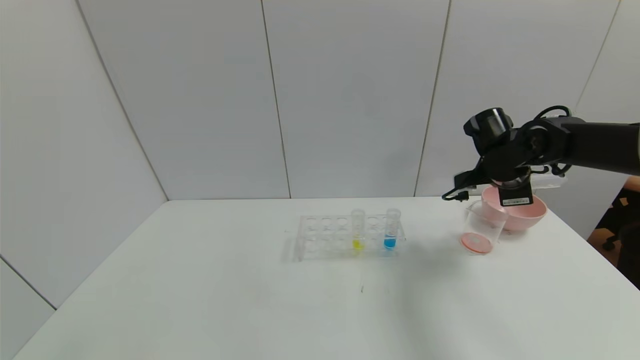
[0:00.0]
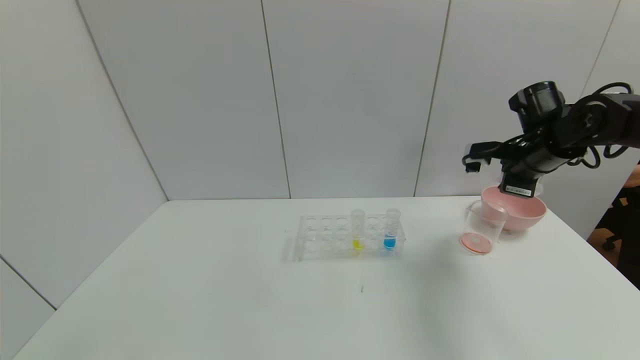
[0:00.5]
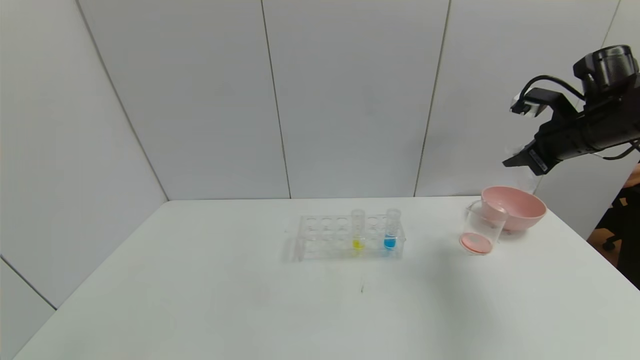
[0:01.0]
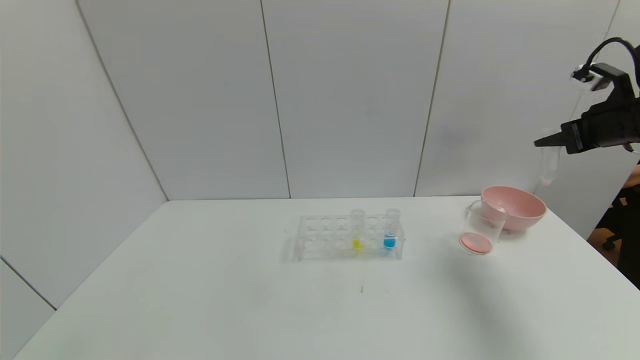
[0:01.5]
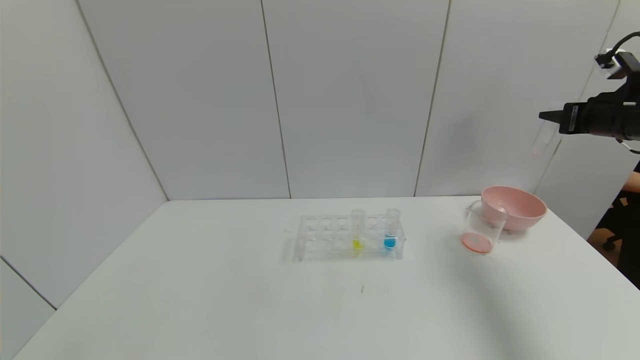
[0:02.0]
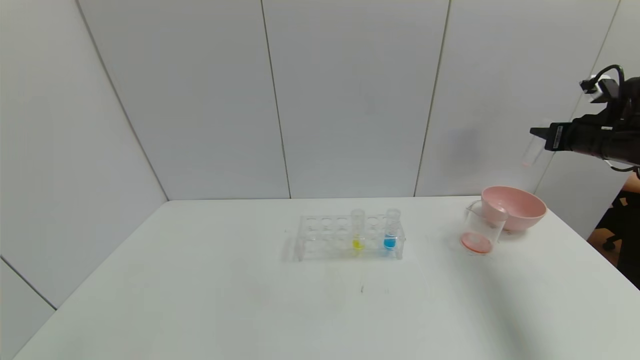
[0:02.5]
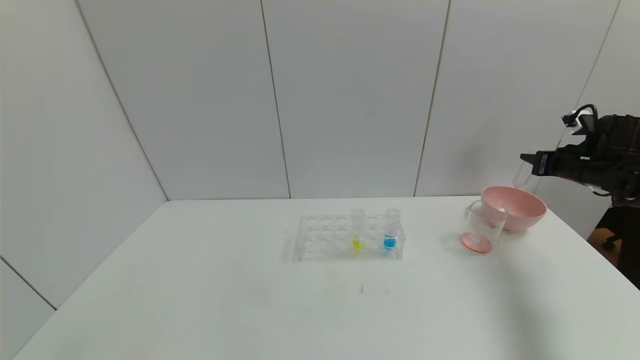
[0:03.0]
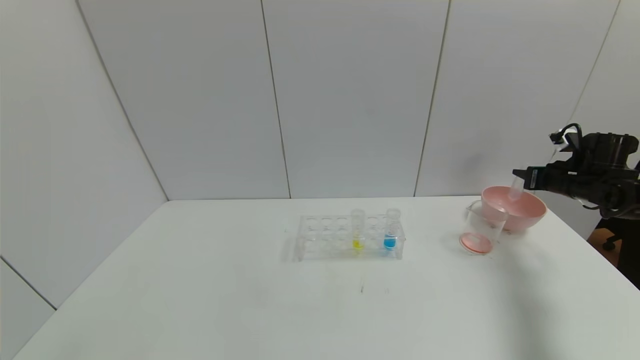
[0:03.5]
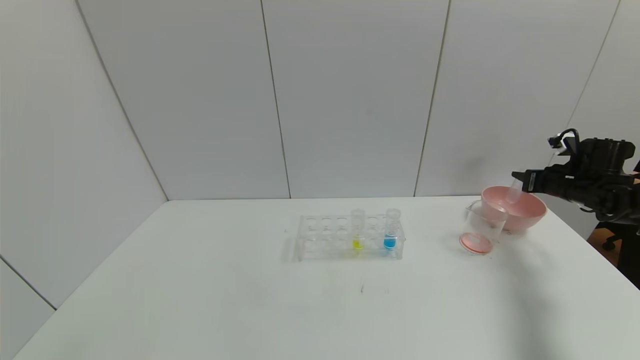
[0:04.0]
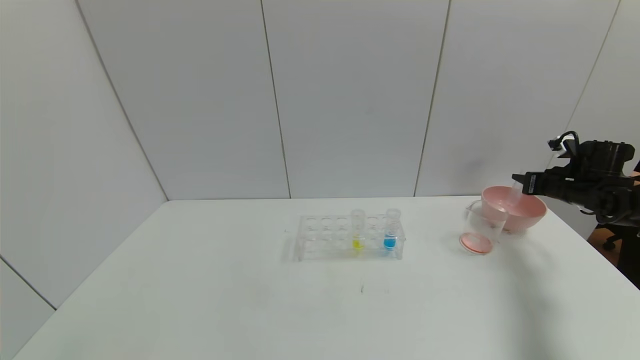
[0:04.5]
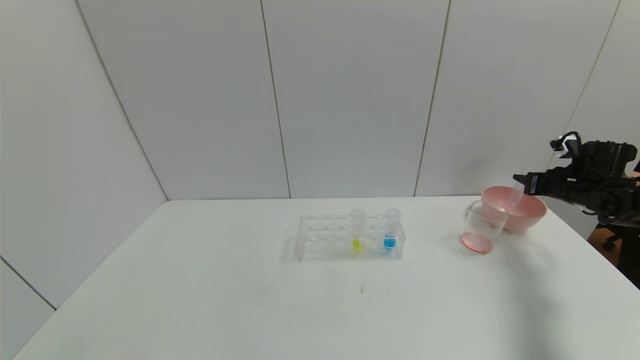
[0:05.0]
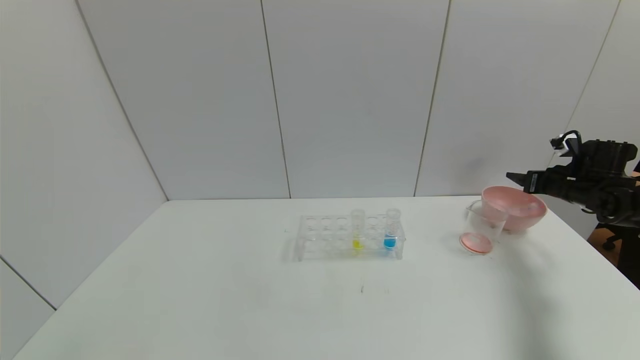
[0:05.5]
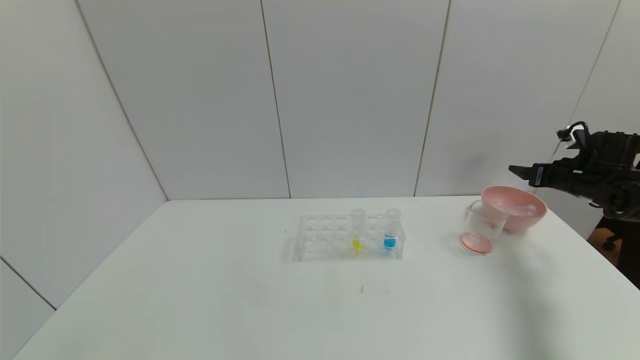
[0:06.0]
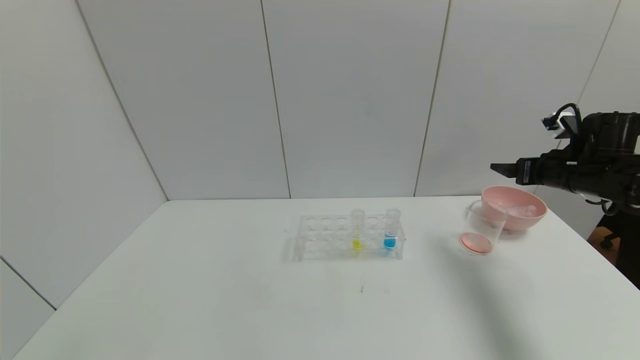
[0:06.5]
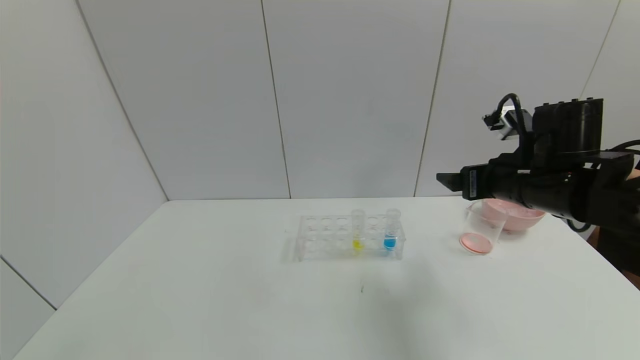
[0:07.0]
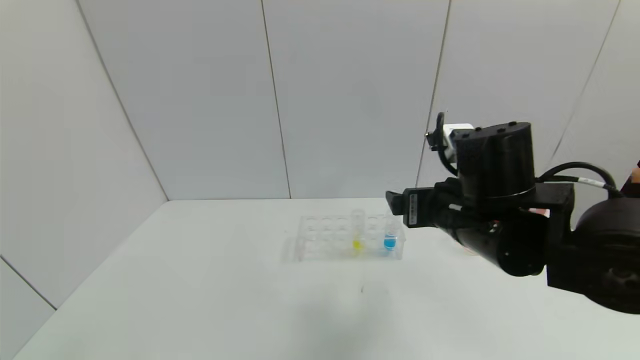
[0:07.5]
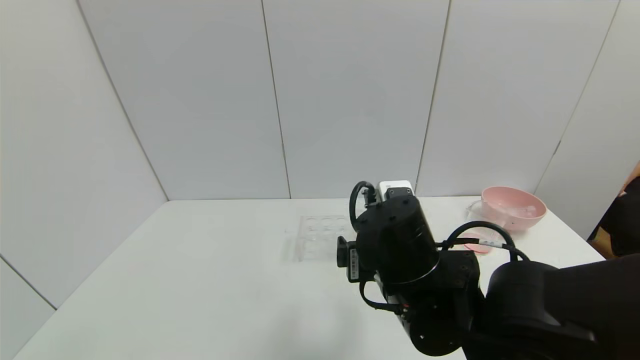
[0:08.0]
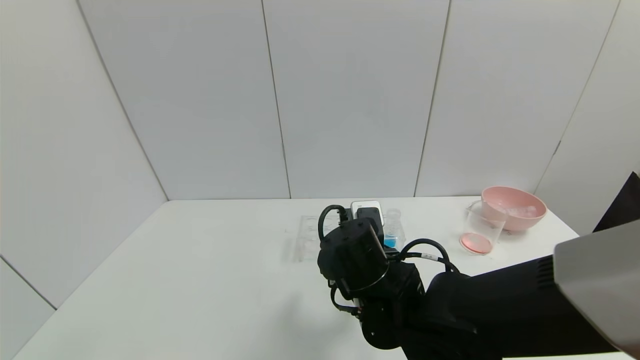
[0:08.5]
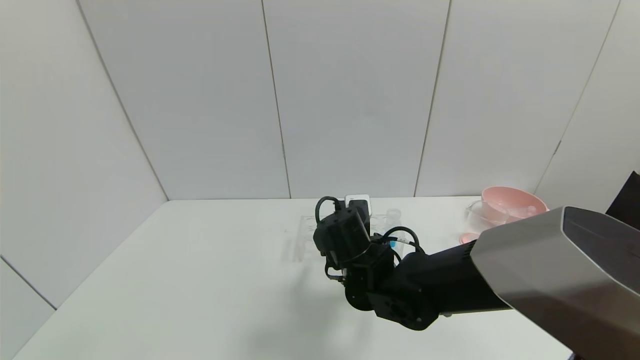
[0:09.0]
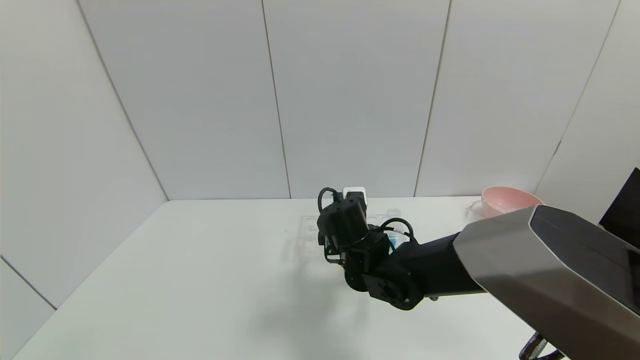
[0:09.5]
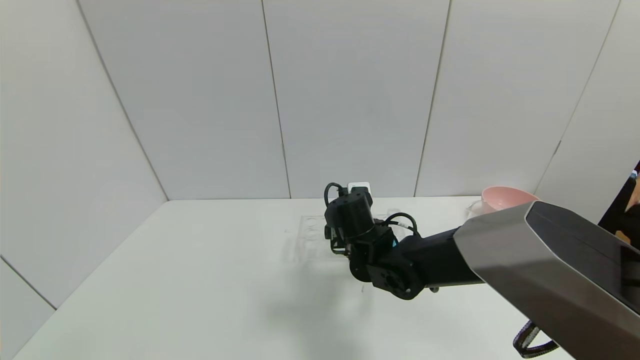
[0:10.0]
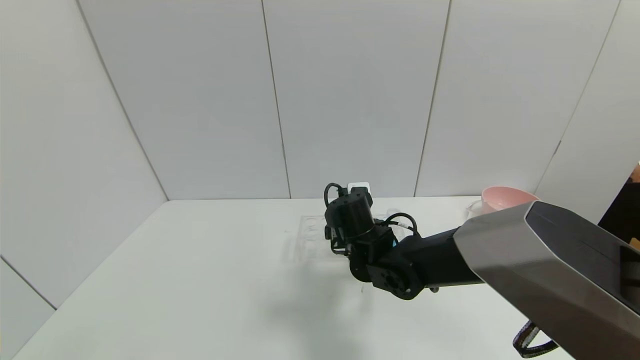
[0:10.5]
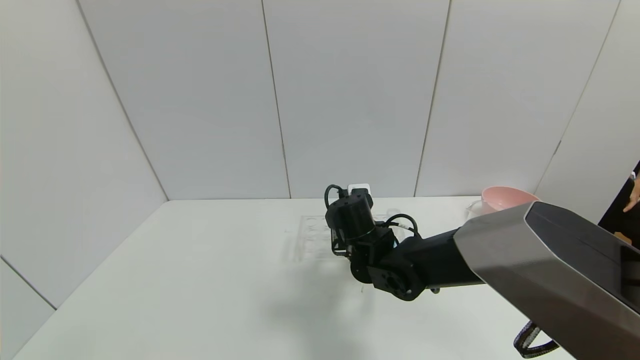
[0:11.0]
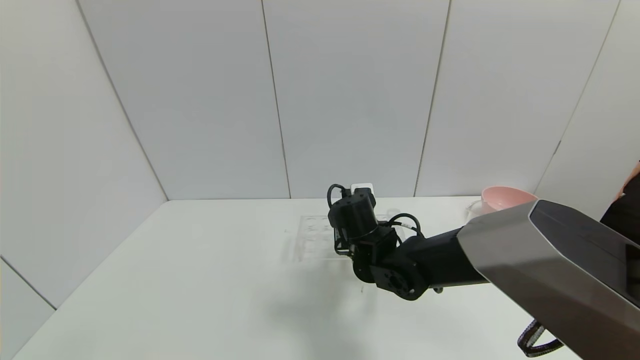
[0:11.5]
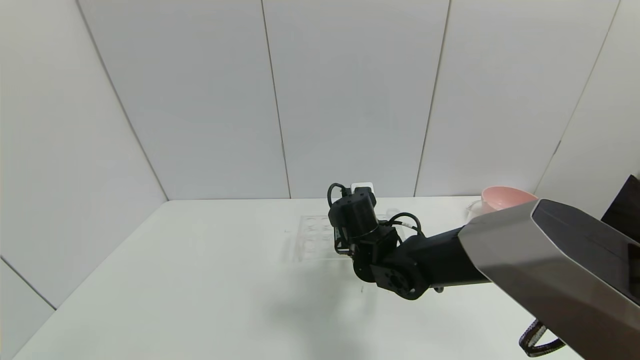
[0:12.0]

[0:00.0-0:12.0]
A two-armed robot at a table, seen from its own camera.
Task of the whole recording: pick up the test tube with yellow pigment and the test tube with red pigment by grippers and pour them into the beaker.
Step, 0:00.0 to 0:05.0: Place the test tube into the bowl with the right gripper.
Step, 0:05.5 to 0:11.0: Grasp the yellow reagent with the right gripper.
0:00.0 to 0:02.0: The right gripper moves to the right and upward, roughly 20 cm.
0:02.0 to 0:04.0: The right gripper heads downward, covering some 15 cm.
0:04.0 to 0:06.0: The right gripper opens its fingers.
0:06.0 to 0:08.0: The right gripper travels to the left and backward by about 40 cm.
0:08.0 to 0:10.0: The right gripper travels forward and downward by approximately 15 cm.
0:10.0 to 0:12.0: The right gripper closes up.

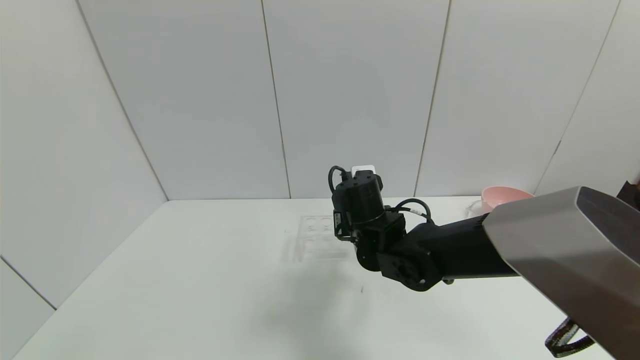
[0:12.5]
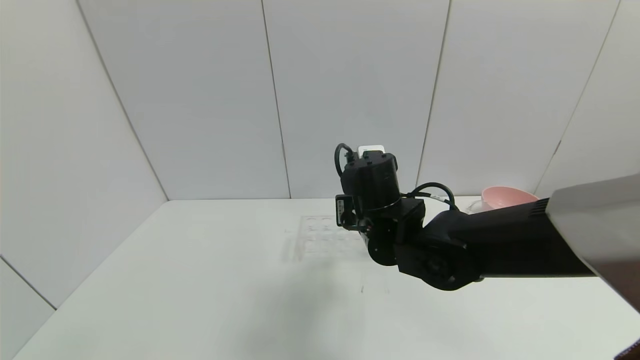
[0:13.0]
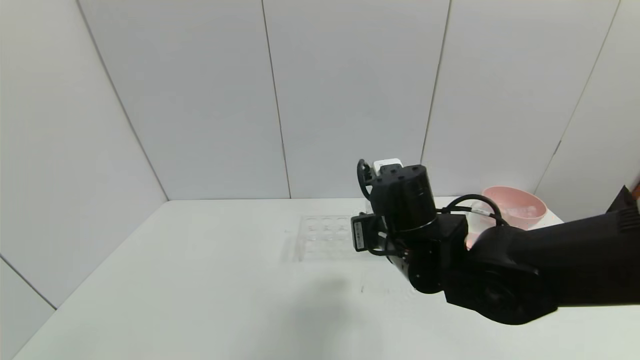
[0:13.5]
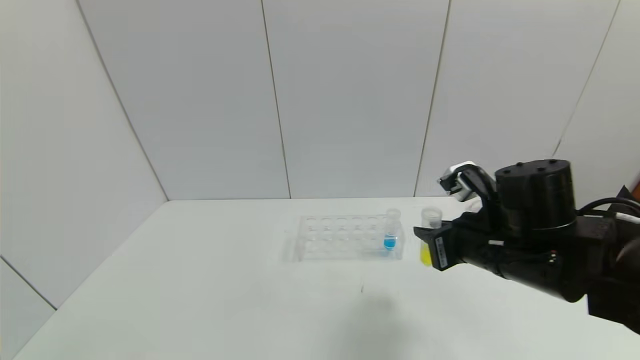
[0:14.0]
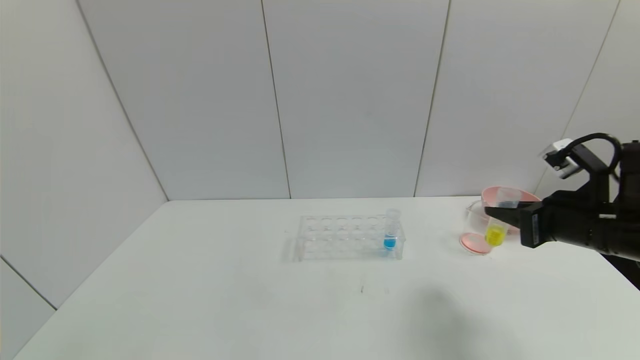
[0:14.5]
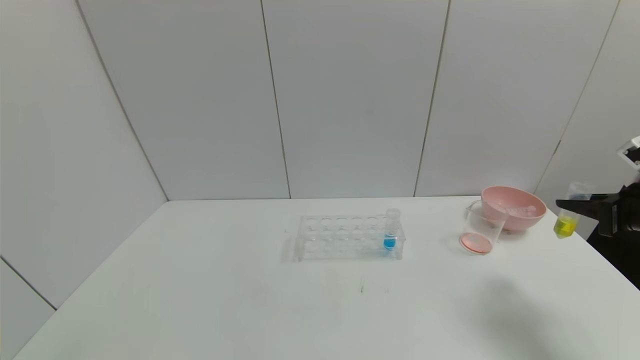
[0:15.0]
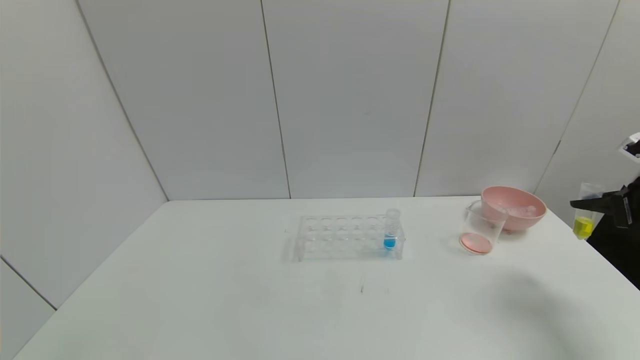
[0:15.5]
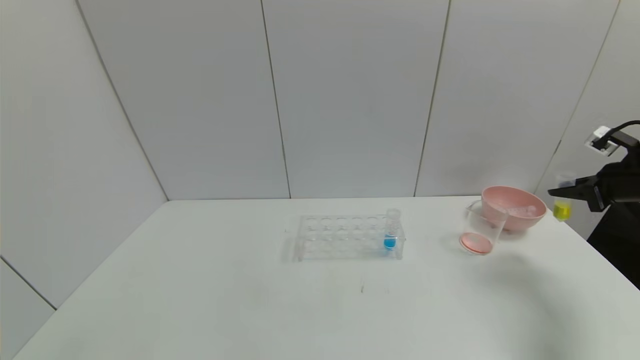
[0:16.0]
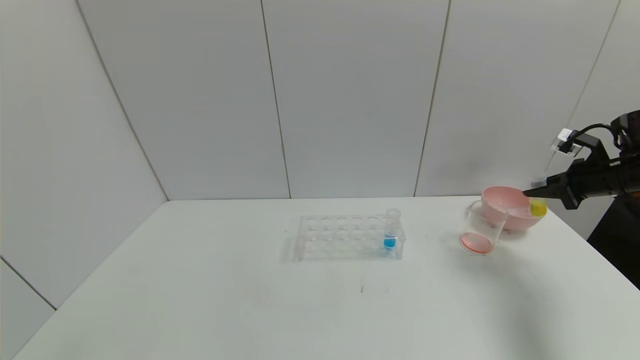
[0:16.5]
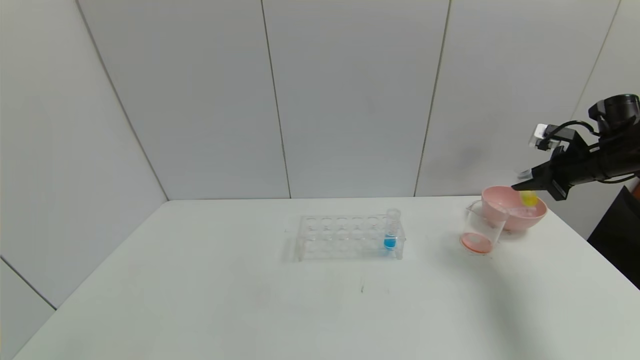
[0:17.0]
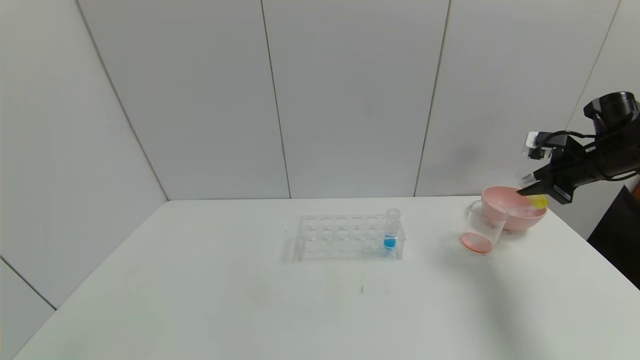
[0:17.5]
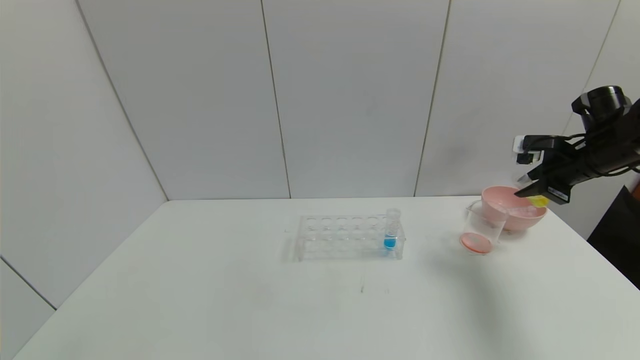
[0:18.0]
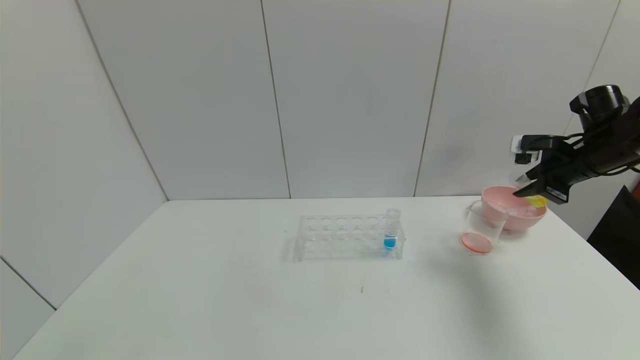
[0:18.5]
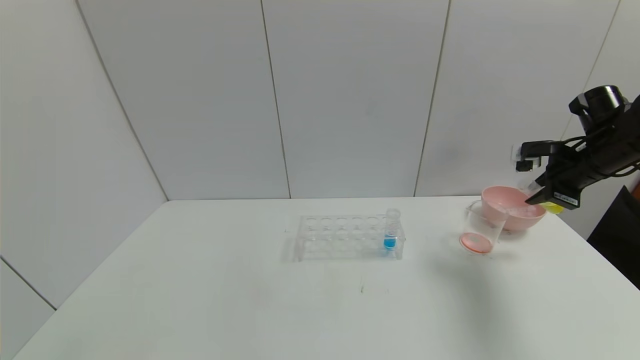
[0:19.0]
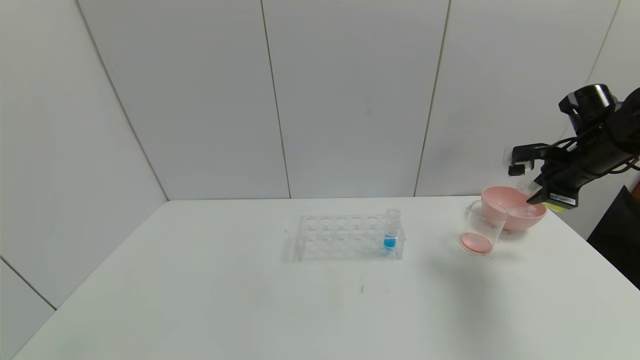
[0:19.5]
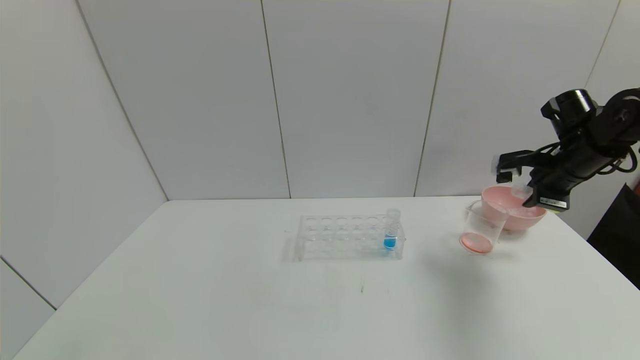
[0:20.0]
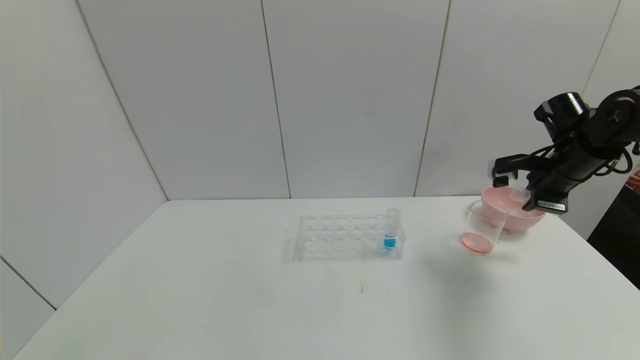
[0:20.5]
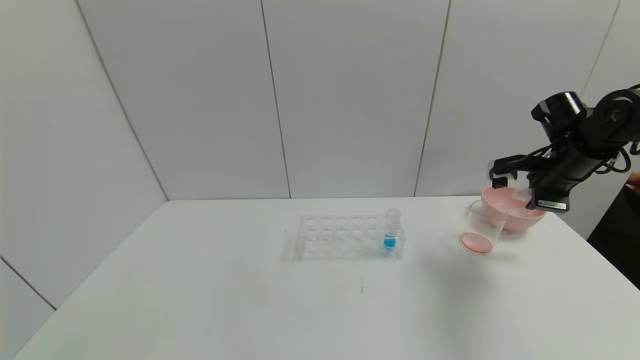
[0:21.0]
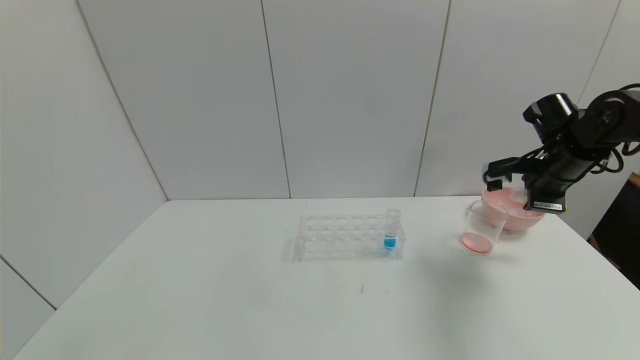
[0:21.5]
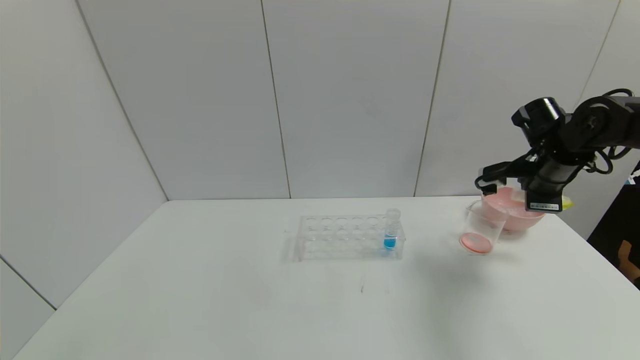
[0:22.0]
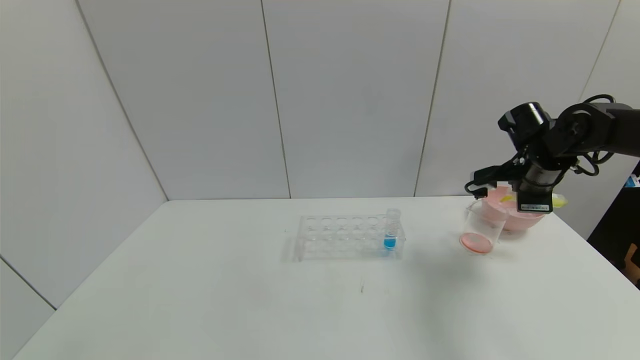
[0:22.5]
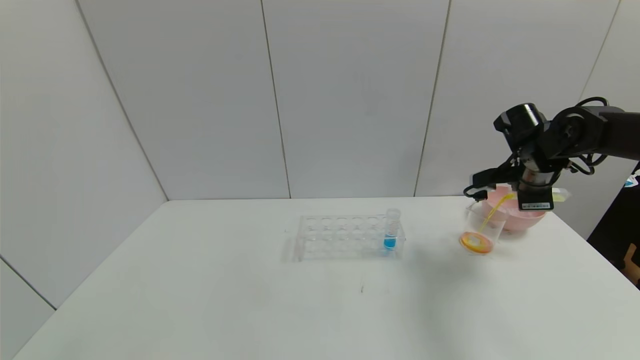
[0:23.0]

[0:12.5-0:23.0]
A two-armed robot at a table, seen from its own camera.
Task of the whole recording: pick up the test tube with yellow pigment and the test tube with red pigment by grippers and pour them into the beaker.
0:12.5 to 0:14.5: The right gripper moves to the right, roughly 30 cm.
0:14.5 to 0:16.5: The right gripper moves to the right and forward, roughly 20 cm.
0:16.5 to 0:19.0: The right gripper heads to the left, covering some 5 cm.
0:19.0 to 0:21.0: The grippers move only a little.
0:21.0 to 0:23.0: The grippers move only a little.
